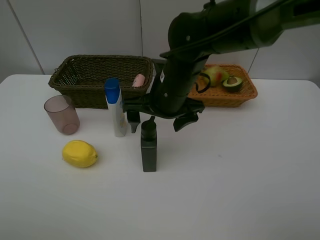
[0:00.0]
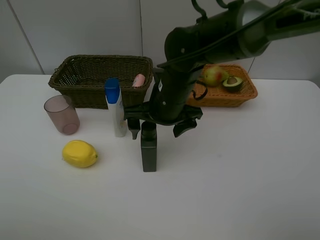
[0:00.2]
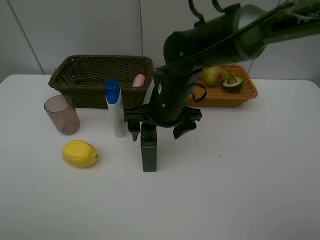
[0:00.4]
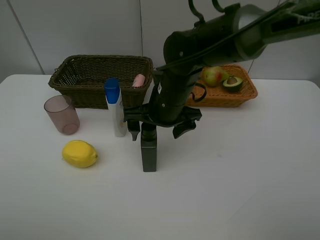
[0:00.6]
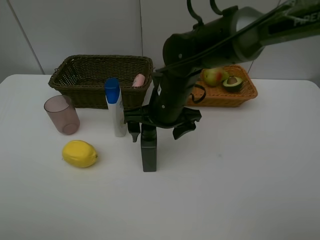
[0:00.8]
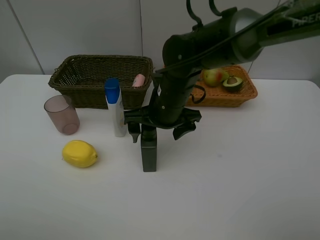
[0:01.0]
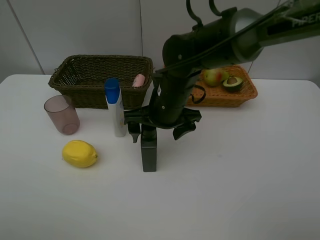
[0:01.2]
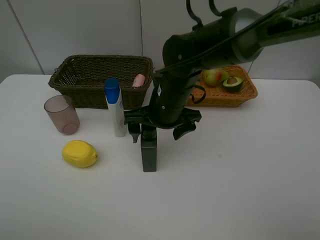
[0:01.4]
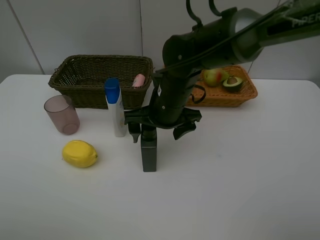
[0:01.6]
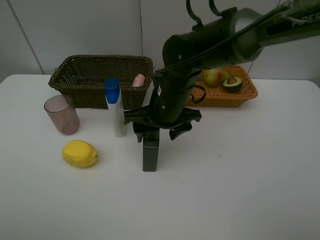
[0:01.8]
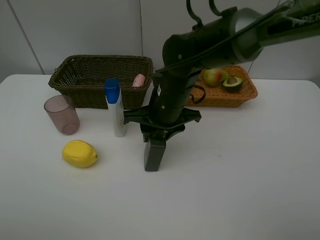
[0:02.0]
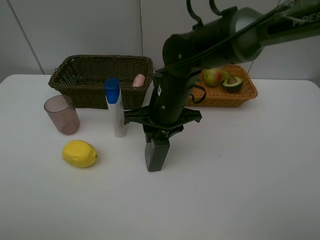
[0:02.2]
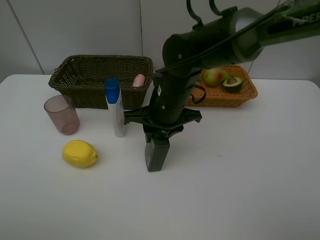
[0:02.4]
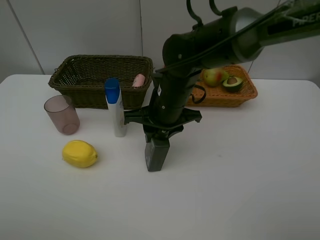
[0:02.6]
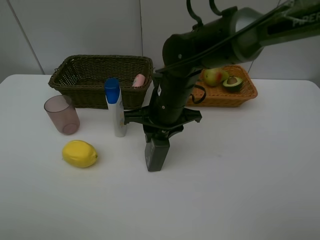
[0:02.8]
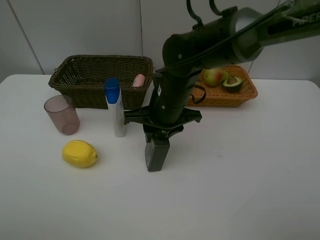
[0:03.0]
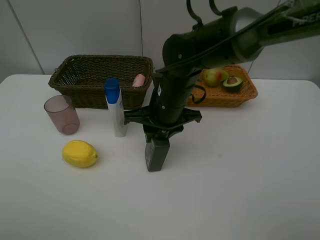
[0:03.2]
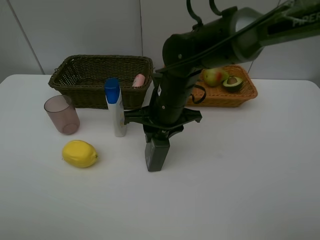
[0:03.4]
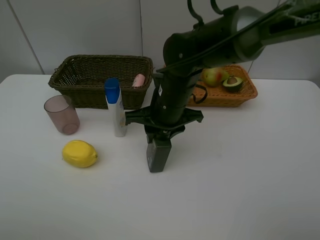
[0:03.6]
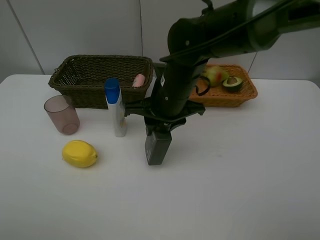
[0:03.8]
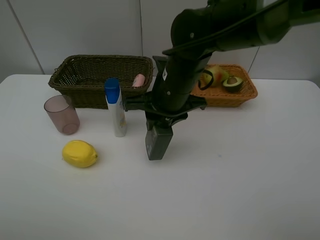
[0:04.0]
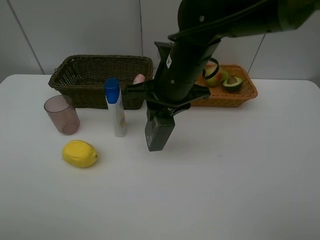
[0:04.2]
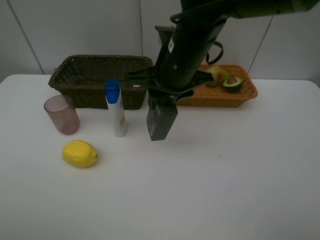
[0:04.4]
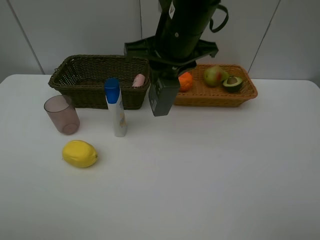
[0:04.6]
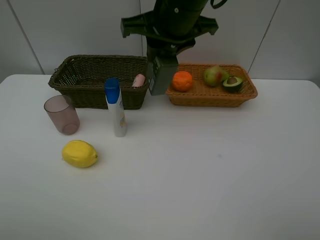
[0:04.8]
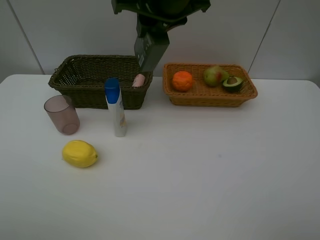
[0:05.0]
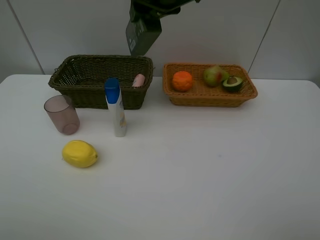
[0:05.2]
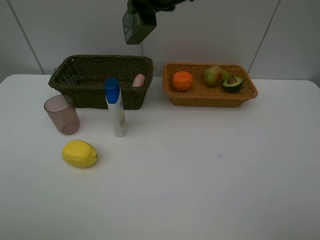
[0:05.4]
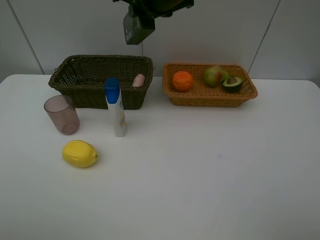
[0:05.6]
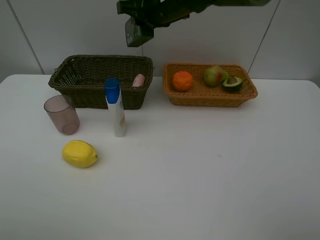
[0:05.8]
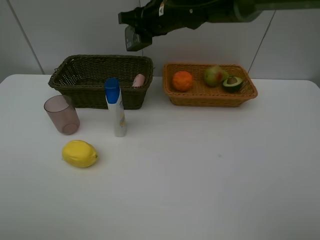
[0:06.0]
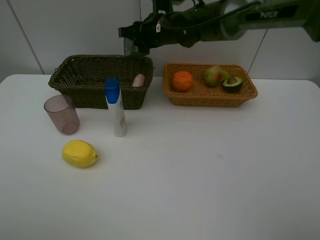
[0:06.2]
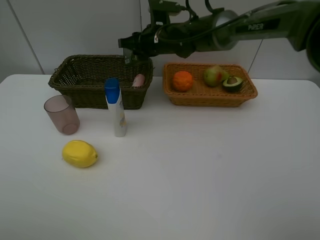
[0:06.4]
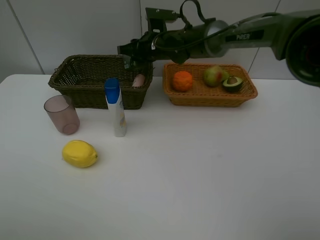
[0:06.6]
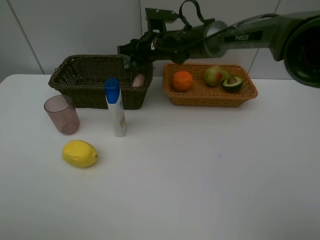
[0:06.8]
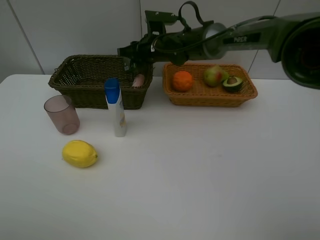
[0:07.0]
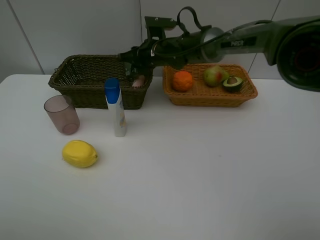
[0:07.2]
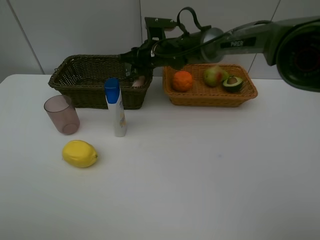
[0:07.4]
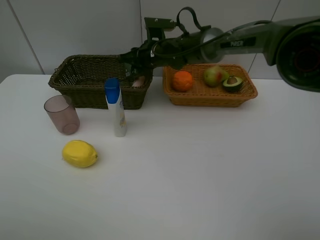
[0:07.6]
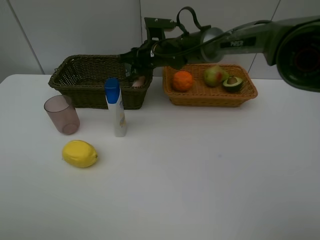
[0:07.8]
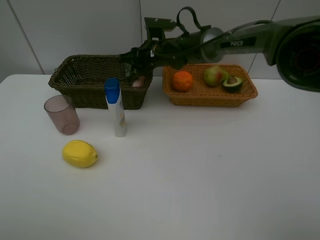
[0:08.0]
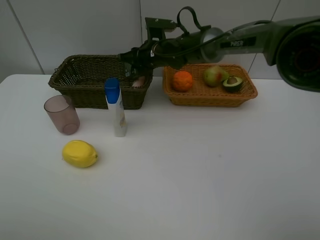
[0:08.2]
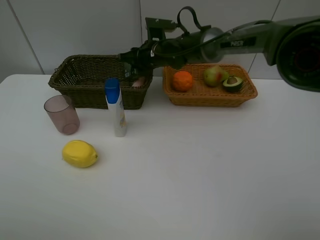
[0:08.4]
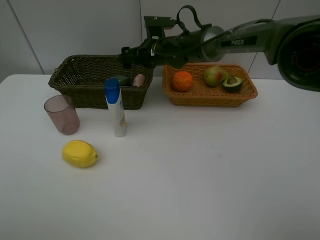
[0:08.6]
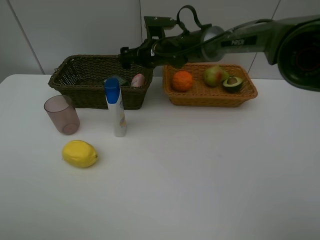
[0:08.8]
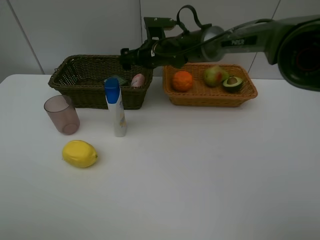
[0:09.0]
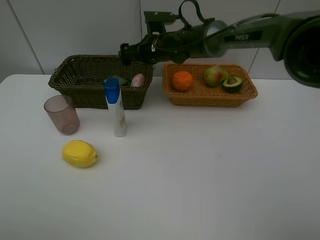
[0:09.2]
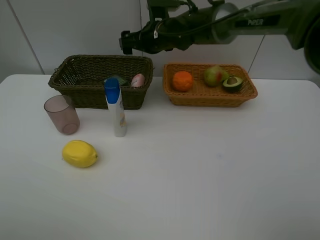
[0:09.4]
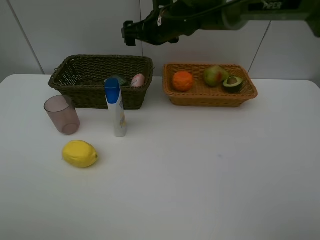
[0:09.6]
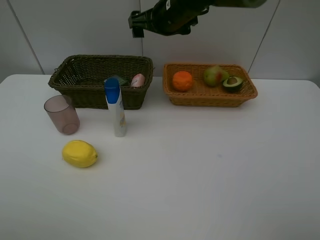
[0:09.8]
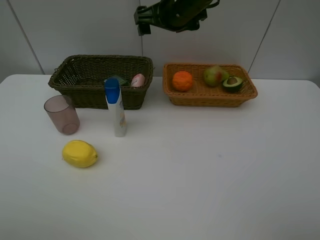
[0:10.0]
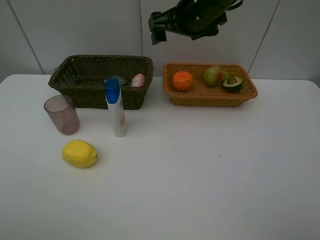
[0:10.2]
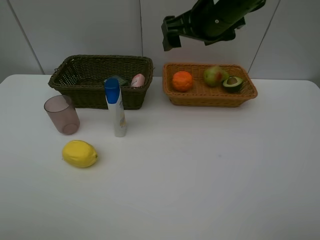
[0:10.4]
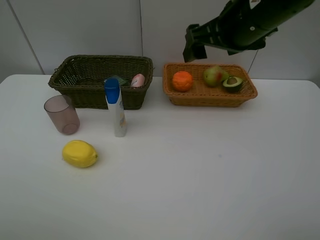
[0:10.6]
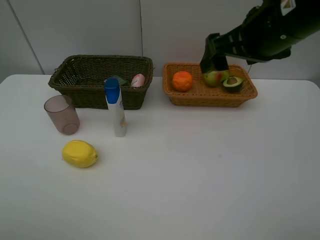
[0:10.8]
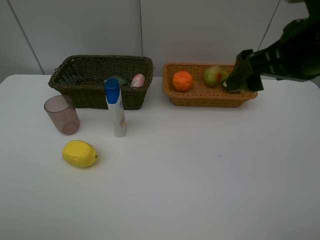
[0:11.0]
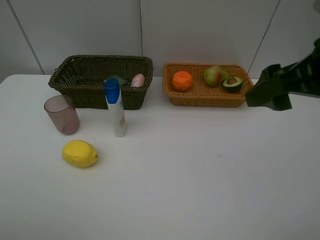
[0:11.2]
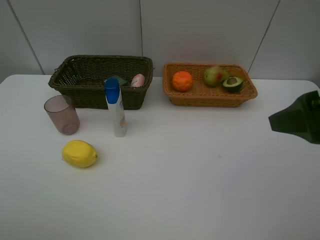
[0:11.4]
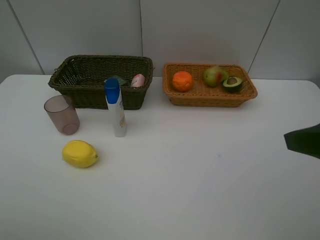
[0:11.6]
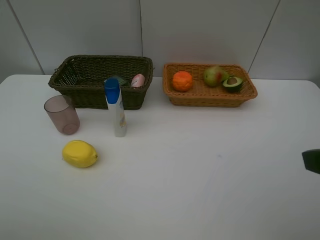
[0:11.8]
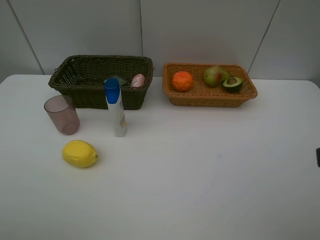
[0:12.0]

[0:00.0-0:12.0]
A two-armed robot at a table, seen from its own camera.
Task of the whole recording: Place multiple objects separately in different baskets.
Step, 0:00.0 to 0:03.8: Pick up the hard facial cleanser with right gripper.
Step, 0:04.0 to 0:09.0: Place the hard facial cleanser in the dark basket with right gripper.
0:00.0 to 0:01.6: There are only small adjustments of the grippers.
0:01.6 to 0:03.0: The right gripper closes.
0:03.0 to 0:04.4: The right gripper travels upward by roughly 10 cm.
0:04.4 to 0:06.0: The right gripper goes some 15 cm forward.
0:06.0 to 0:07.6: The right gripper is displaced downward by about 10 cm.
0:07.6 to 0:09.0: The right gripper opens up.
0:09.0 to 0:10.4: The right gripper shifts some 20 cm upward, backward and to the right.
0:10.4 to 0:12.0: The right gripper travels backward and to the right by some 35 cm.

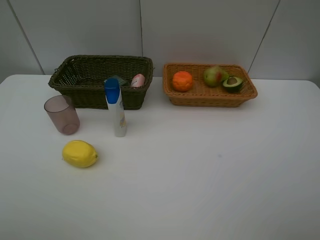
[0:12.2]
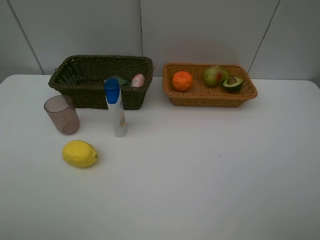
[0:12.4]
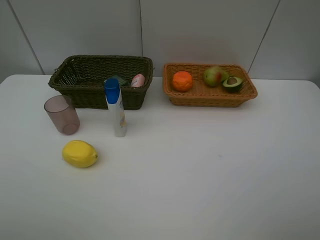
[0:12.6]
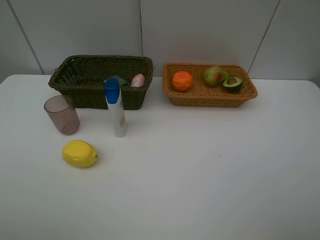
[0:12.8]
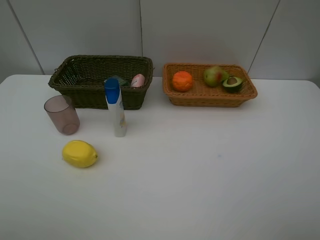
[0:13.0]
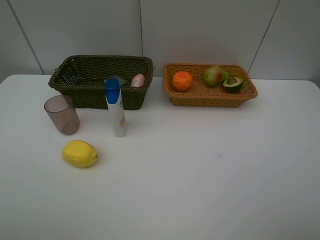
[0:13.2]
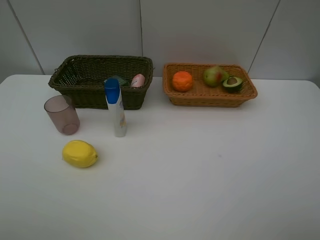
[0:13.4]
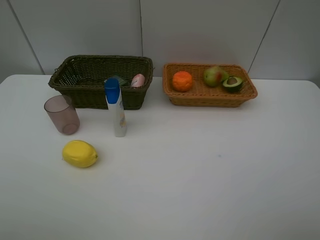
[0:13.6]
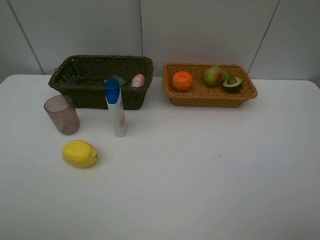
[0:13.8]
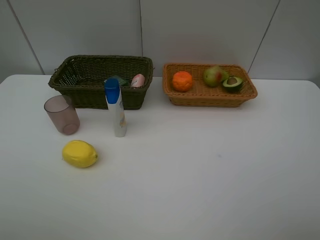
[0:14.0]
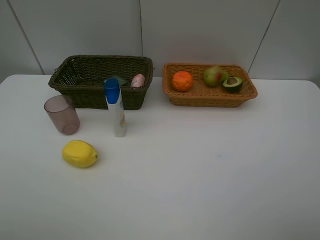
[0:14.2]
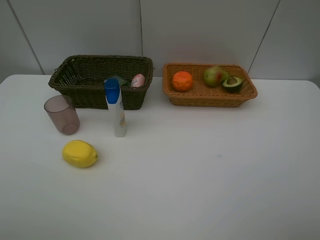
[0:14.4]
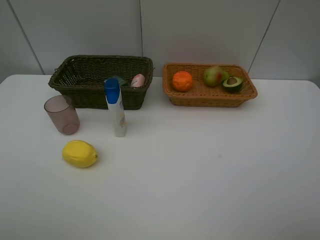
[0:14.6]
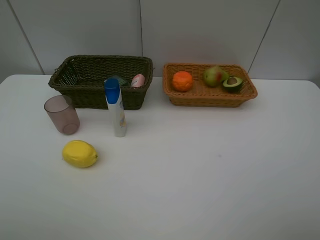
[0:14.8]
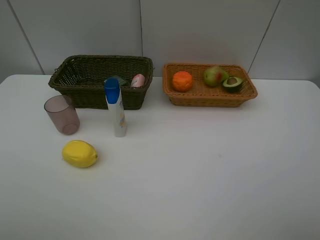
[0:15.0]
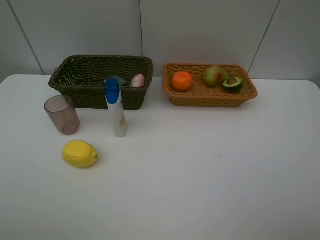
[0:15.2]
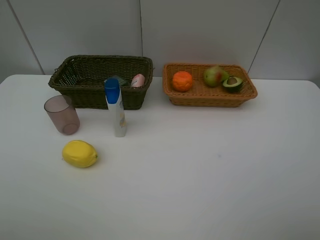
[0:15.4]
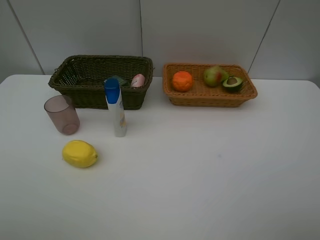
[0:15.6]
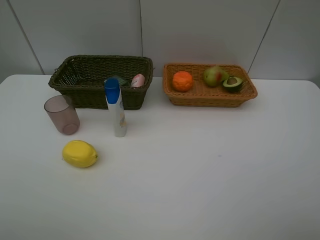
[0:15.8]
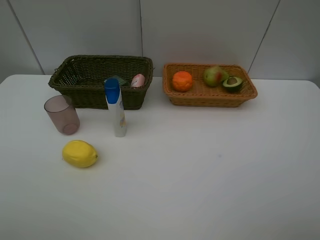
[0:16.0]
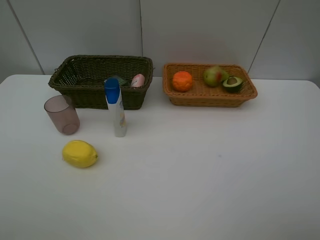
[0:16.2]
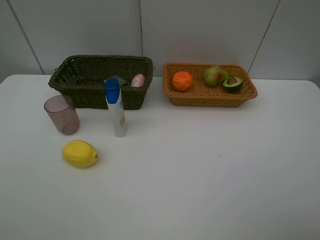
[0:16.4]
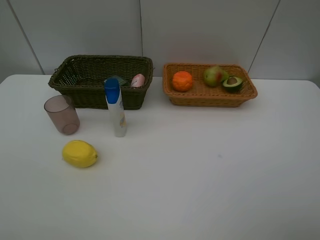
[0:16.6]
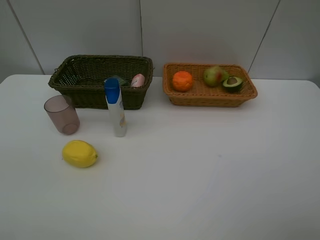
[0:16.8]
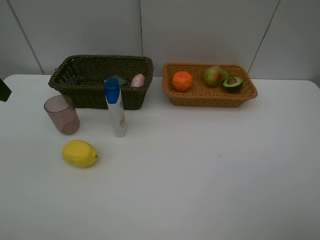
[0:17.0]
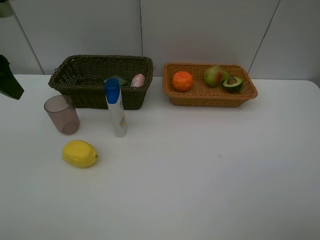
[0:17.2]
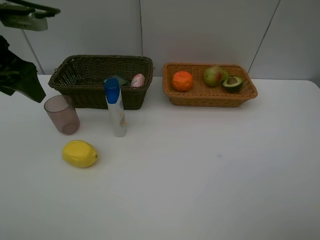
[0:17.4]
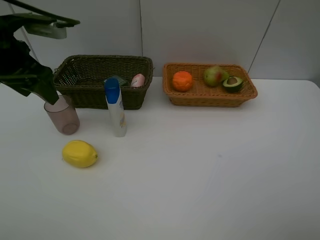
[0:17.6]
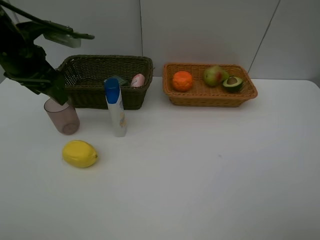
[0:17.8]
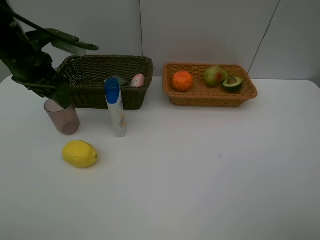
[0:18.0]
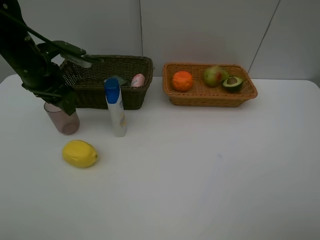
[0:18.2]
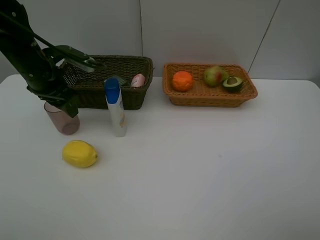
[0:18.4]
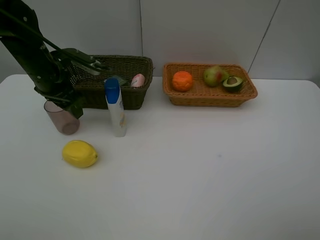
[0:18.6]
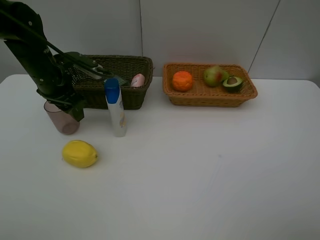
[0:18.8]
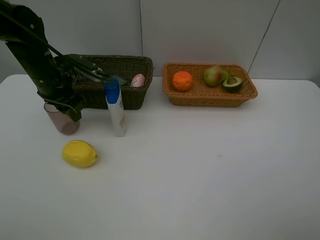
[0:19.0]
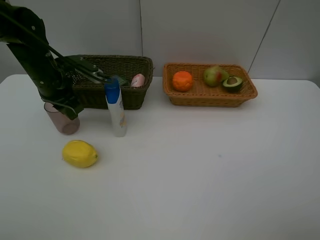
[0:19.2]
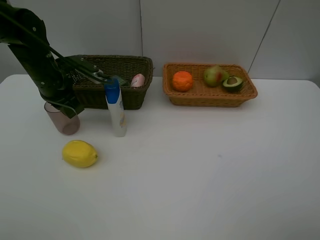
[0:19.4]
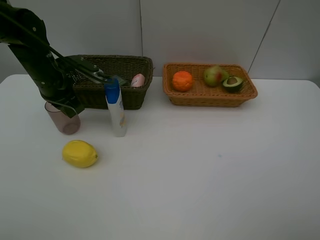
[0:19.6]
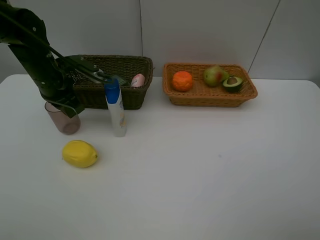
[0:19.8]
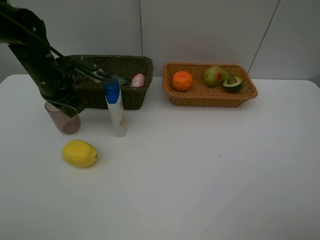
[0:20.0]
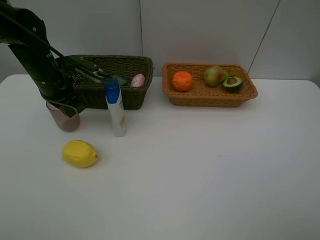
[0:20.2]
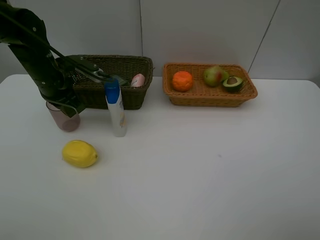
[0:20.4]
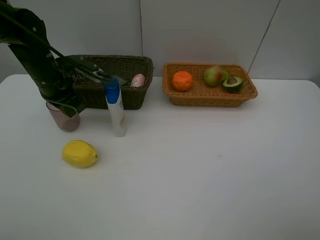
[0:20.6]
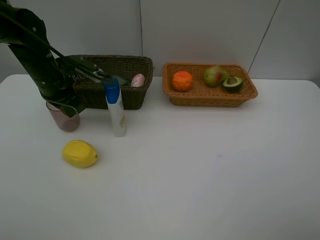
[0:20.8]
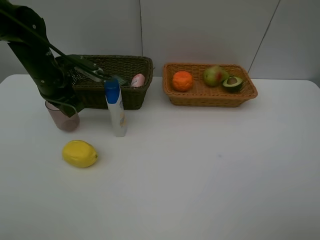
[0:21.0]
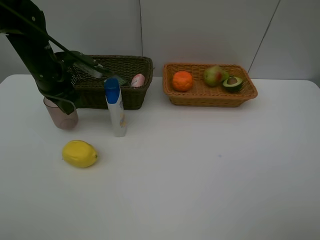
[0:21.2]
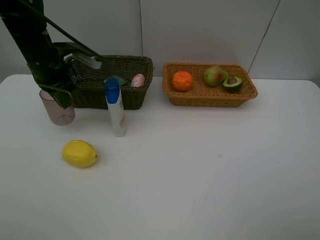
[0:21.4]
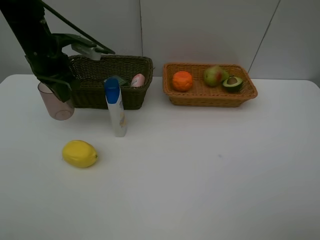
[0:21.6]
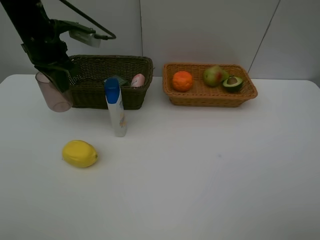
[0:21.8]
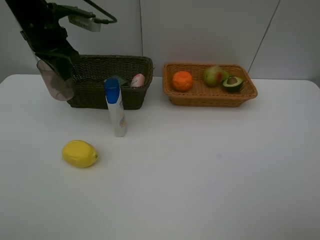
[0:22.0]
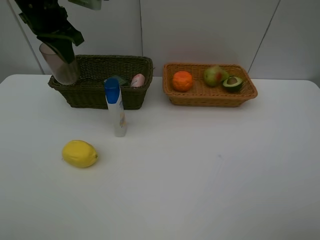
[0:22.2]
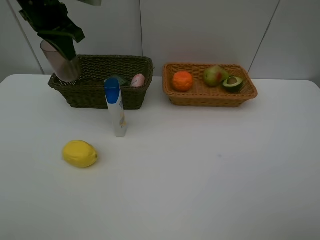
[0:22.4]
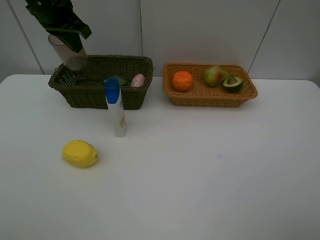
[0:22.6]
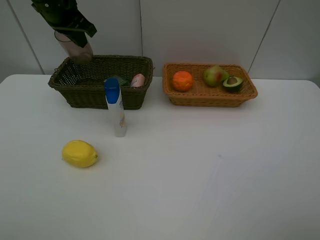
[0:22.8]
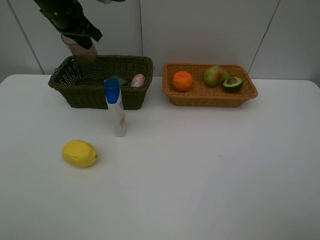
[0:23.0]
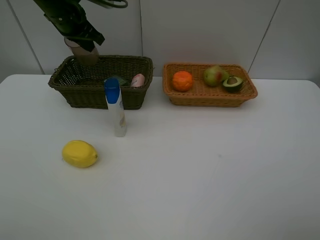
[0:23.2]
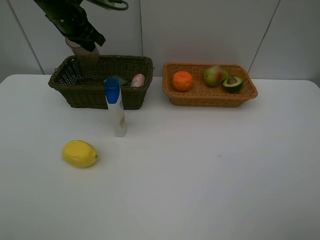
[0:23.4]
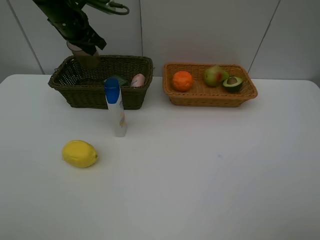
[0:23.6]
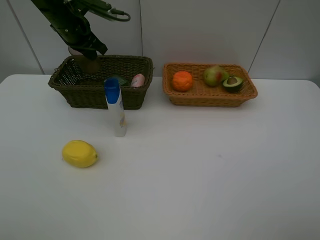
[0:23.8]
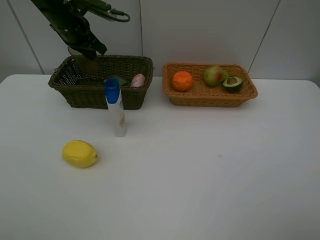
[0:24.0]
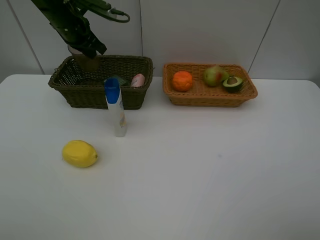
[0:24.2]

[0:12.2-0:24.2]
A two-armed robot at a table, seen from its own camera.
Task of the whole recording: Place multiple objects separately in different baskets.
Step, 0:12.2 to 0:21.2: Pick up the red cup with left gripper.
0:13.8 to 0:15.2: The two grippers keep their place.
0:16.6 to 0:18.2: The left gripper travels forward and downward by some 25 cm.
0:18.2 to 0:19.8: The left gripper closes.
0:19.8 to 0:21.2: The two grippers keep their place.
0:21.2 to 0:22.6: The left gripper moves upward and forward, roughly 15 cm.
0:22.6 to 0:24.2: The left gripper heads downward, covering some 5 cm.
